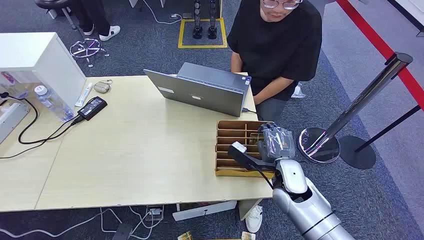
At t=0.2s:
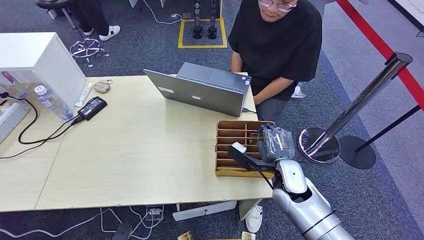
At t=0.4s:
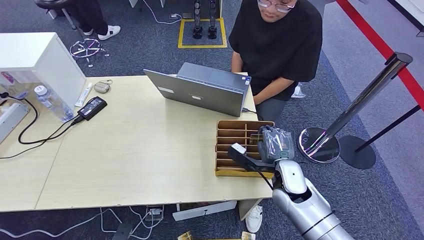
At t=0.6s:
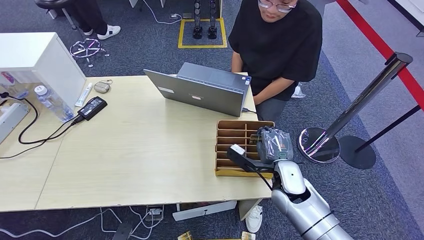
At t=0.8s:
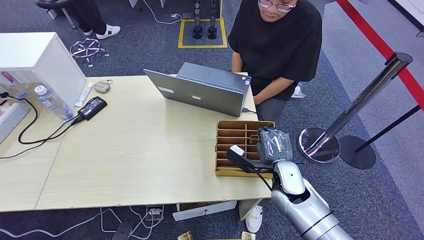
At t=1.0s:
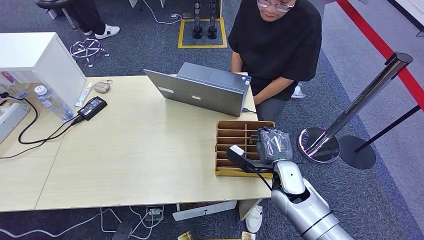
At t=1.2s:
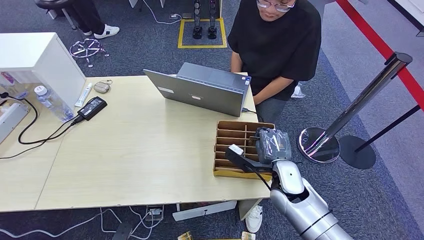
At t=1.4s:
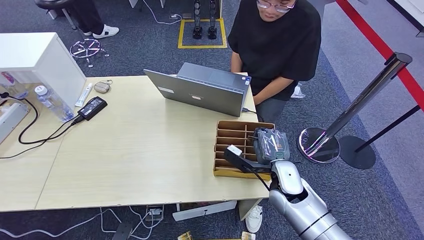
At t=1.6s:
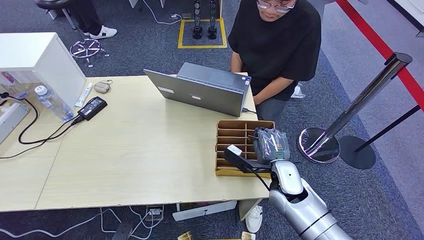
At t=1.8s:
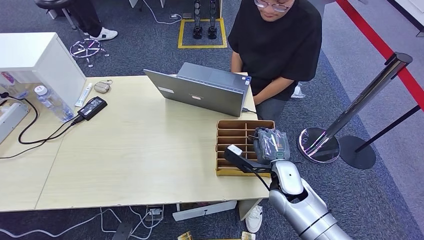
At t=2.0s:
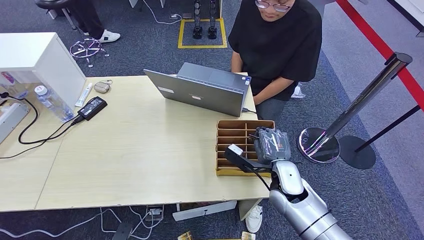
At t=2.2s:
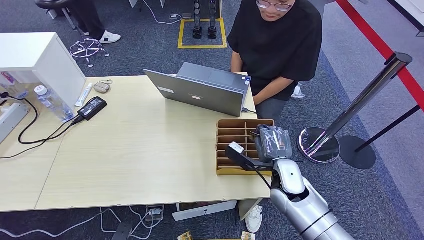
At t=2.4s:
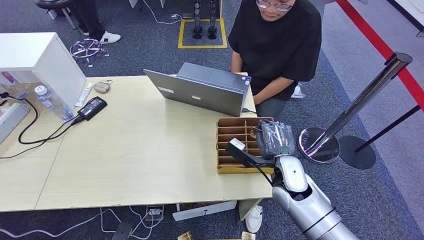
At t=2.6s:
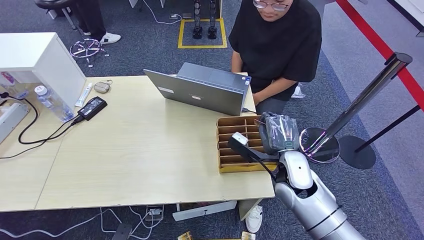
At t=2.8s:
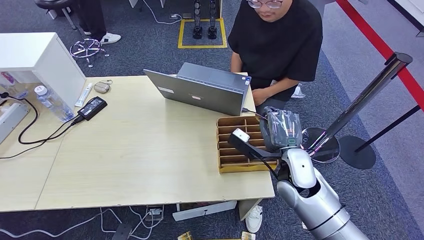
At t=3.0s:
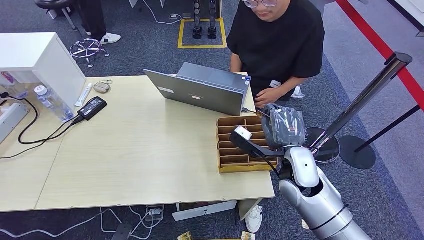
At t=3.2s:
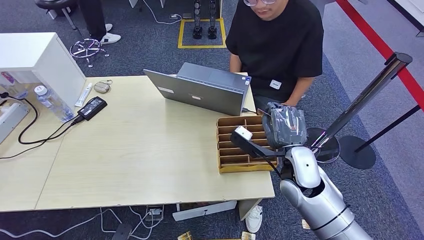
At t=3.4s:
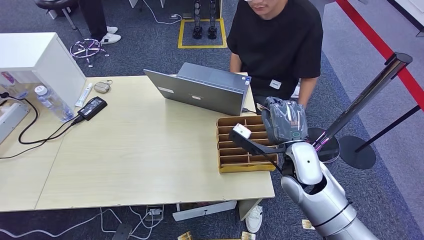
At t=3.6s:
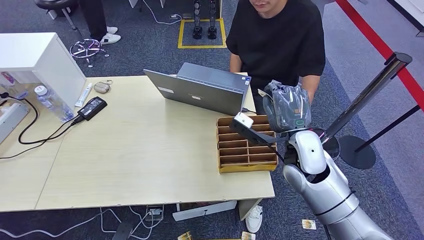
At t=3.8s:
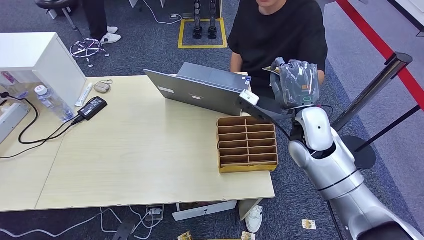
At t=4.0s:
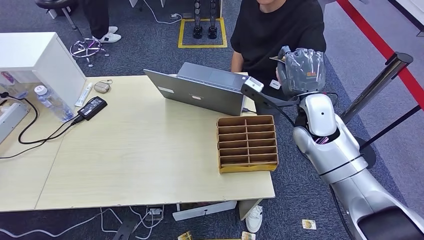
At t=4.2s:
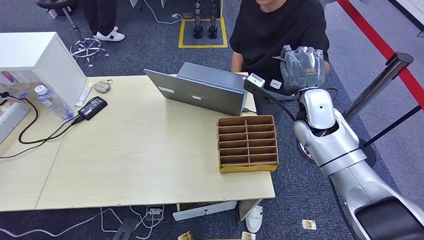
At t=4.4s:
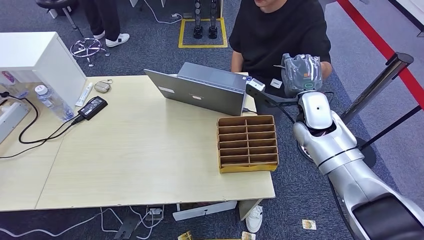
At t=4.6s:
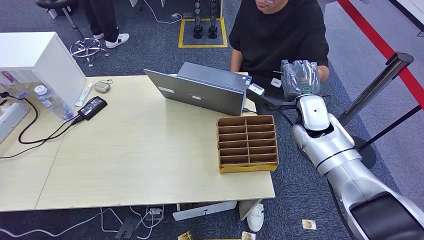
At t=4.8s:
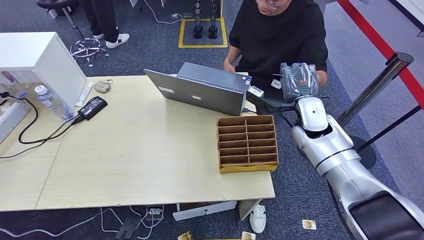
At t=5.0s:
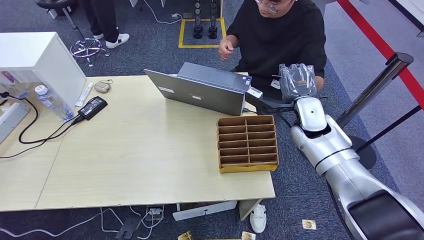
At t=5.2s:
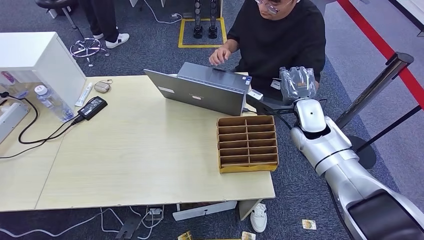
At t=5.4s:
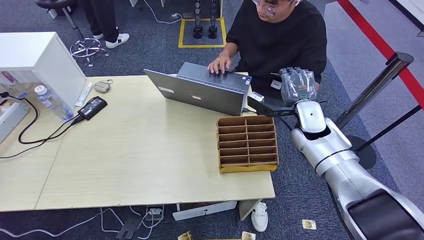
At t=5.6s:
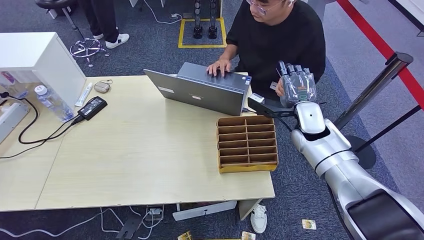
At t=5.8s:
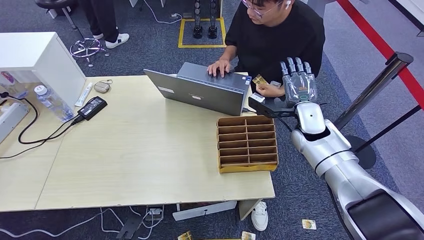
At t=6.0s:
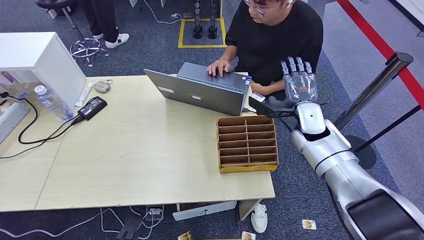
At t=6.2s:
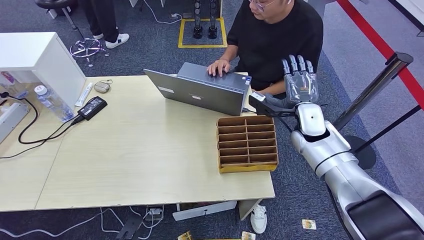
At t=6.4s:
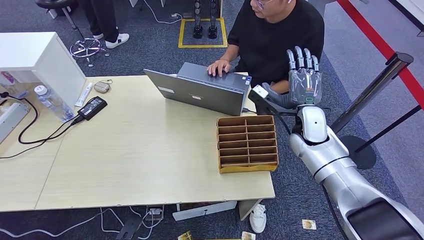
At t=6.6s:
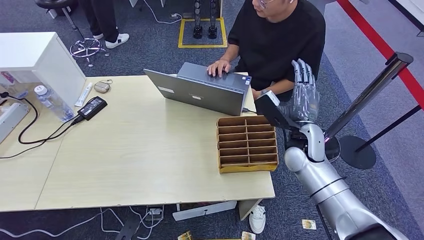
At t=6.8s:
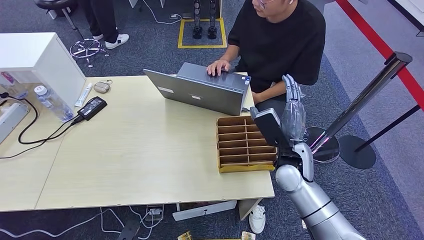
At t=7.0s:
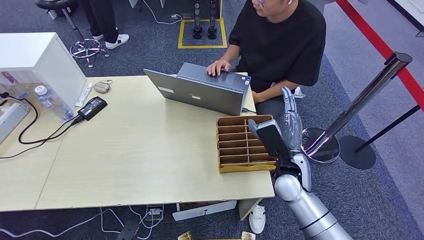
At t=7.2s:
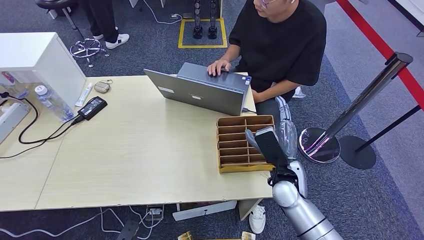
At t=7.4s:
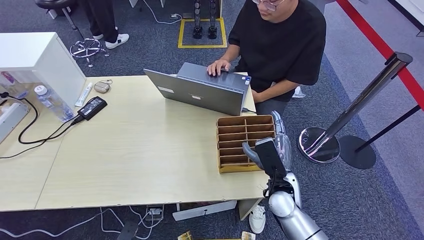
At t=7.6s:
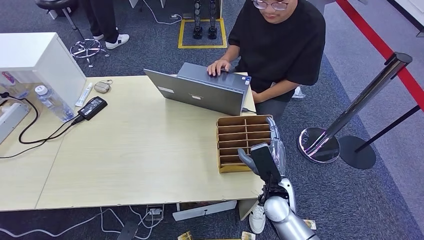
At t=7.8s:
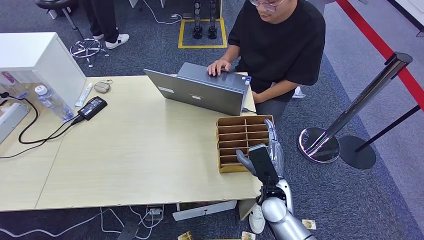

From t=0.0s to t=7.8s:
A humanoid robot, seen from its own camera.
Step, from t=0.0s to t=2.8s: Pick up the key card from the card box.
Step, from t=3.0s to t=7.8s: Hand the key card to the target.
From t=1.6s to t=3.2s: The right hand goes roughly 5 cm upward.
From t=3.2s to t=4.6s: The right hand moves forward, upward and to the right, roughly 15 cm.
From t=4.6s to t=6.2s: There are only small adjustments of the hands.
From t=6.2s to t=7.8s: The right hand moves backward, downward and to the left, approximately 20 cm.
